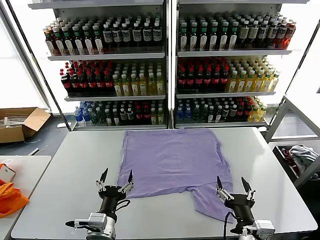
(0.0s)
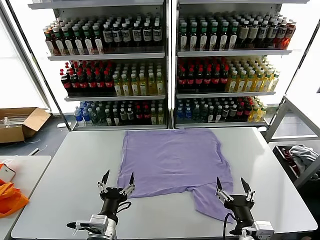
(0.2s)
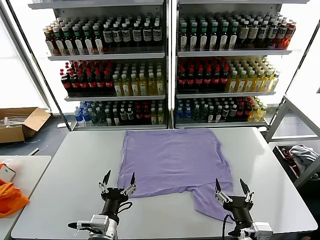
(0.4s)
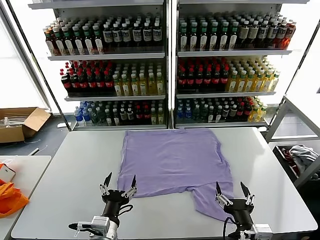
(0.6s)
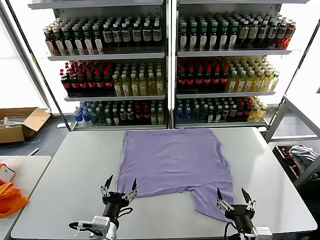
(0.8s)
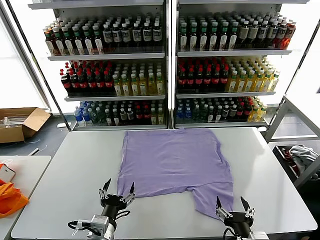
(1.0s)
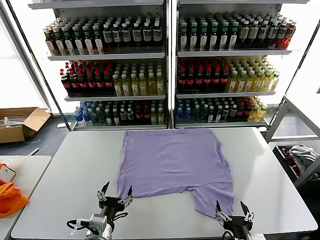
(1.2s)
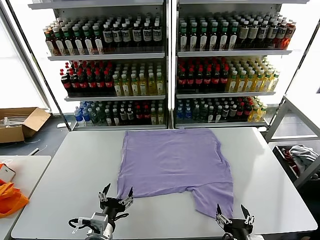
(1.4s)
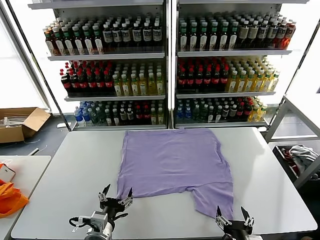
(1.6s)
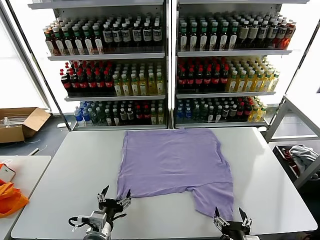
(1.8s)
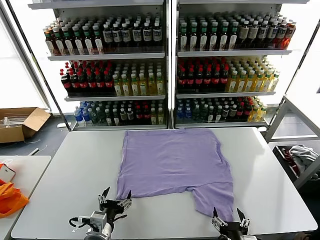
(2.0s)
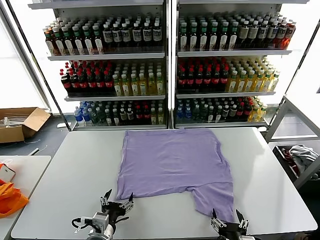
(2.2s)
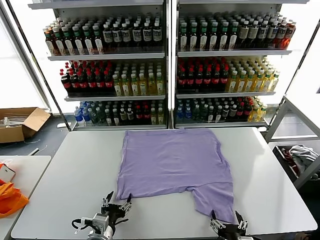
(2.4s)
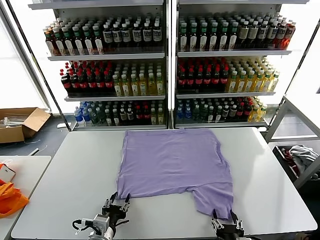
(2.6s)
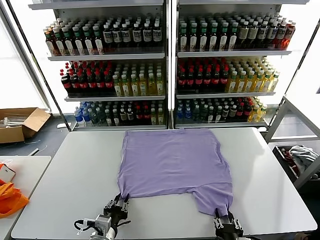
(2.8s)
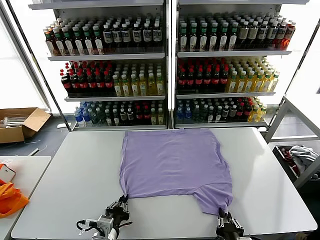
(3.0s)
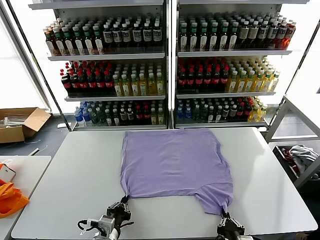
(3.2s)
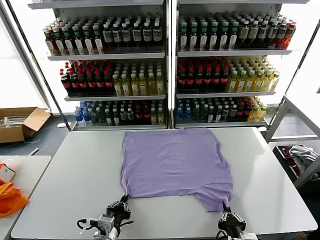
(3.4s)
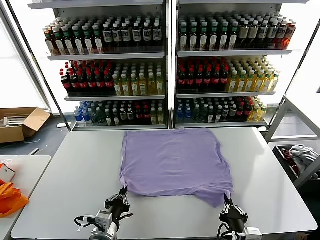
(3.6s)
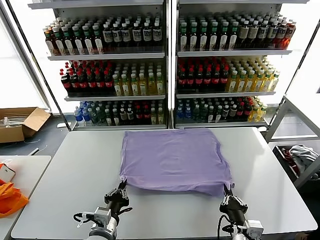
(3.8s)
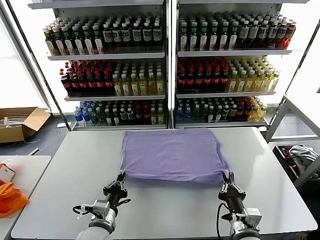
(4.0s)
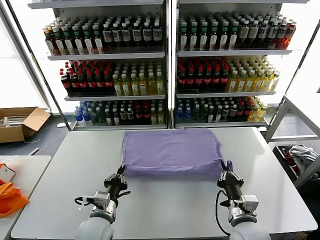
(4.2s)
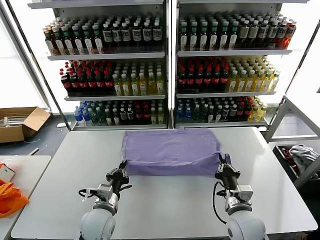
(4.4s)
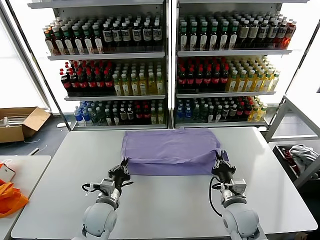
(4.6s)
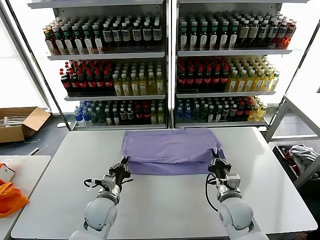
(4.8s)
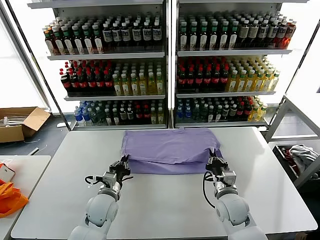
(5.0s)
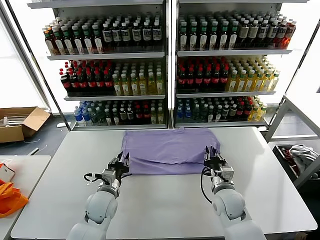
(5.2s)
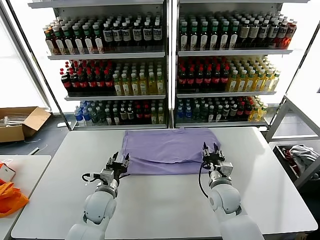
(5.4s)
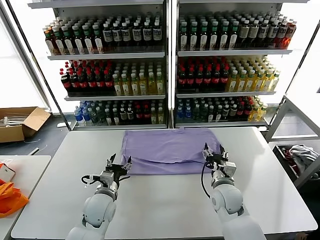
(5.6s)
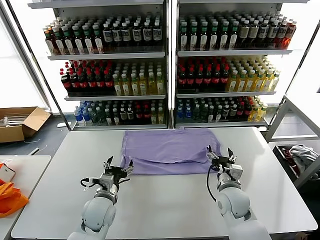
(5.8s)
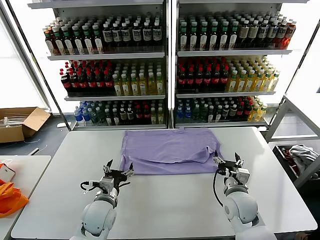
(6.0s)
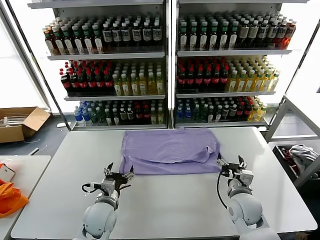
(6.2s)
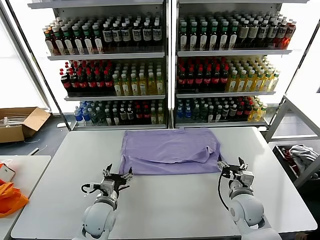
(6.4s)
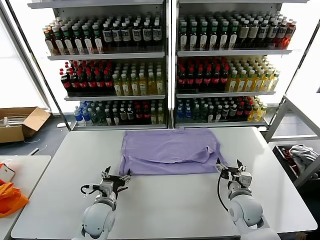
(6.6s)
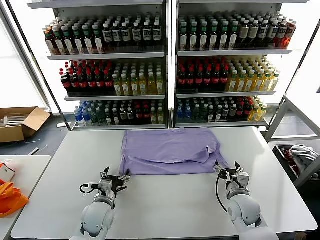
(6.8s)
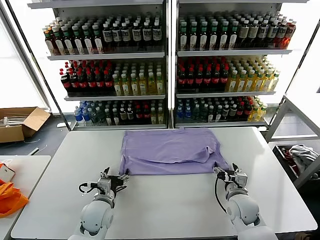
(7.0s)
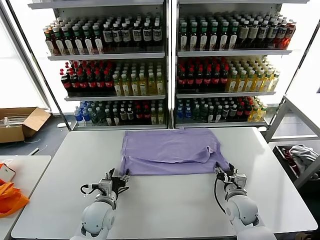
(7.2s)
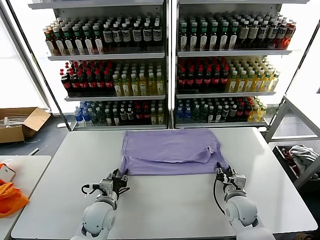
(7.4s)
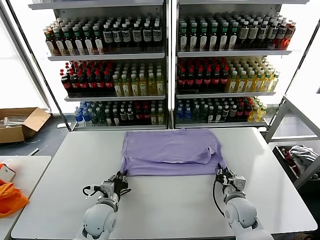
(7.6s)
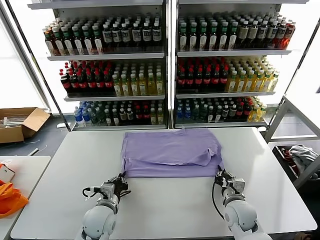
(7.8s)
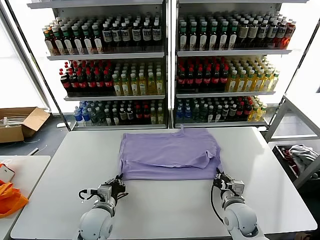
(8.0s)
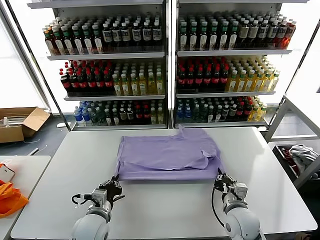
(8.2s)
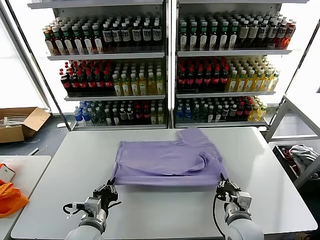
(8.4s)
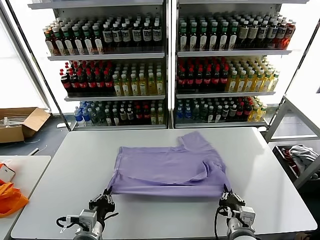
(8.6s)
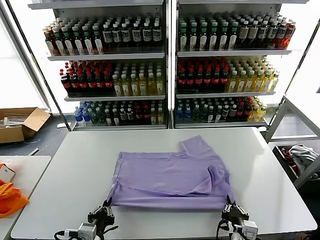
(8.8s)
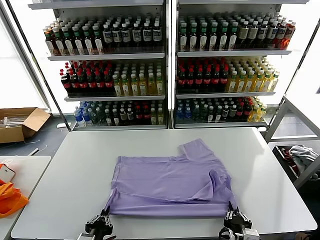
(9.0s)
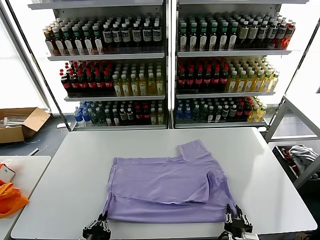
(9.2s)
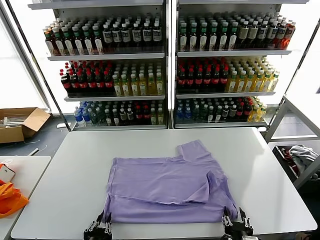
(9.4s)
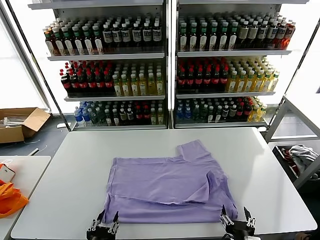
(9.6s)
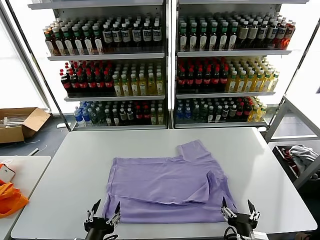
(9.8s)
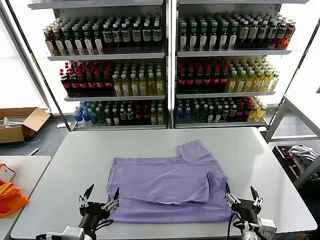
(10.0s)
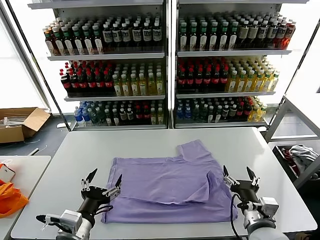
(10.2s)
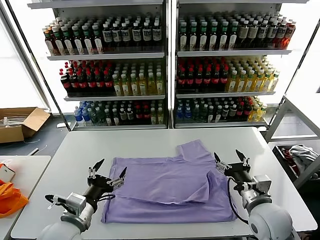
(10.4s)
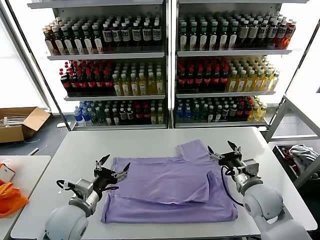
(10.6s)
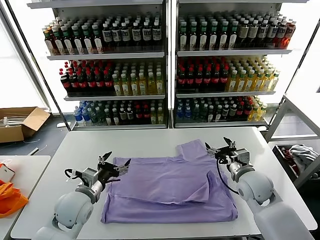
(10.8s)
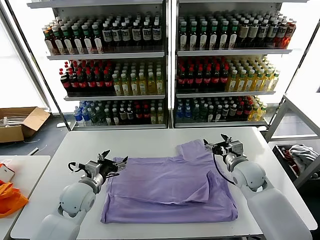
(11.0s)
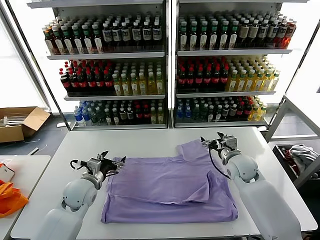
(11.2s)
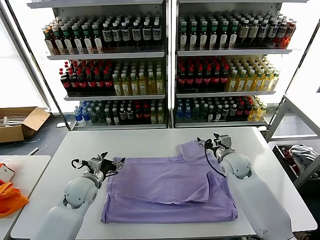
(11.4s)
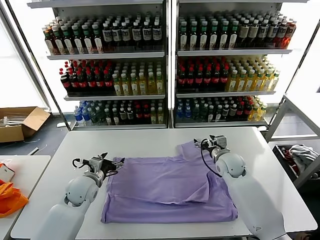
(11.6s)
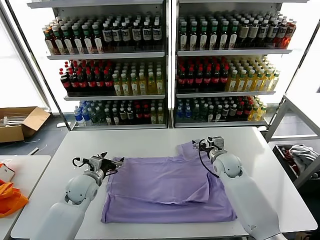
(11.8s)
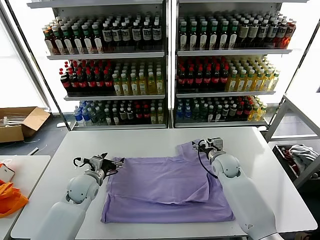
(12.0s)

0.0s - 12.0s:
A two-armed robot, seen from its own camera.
Task of the whole recording: fold and organize the clothes.
Step, 0.0s - 3.4s: use both grippers simultaneously to clamp the lower edge of the clothing fabric.
Step, 3.6s - 5.4s: use both grippers to drag the lower edge of the fabric forward and fold it over the upper edge.
Step, 5.6s - 9.4s: Drag the clothes downward with both gripper.
1.6s - 3.0s: The right gripper closes its fingers. The left gripper closes up.
3.0s - 4.4s: The right gripper goes about 15 cm forward. The left gripper travels forward by some 10 cm.
4.4s - 6.0s: The right gripper opens its fingers, while the left gripper opens its fingers.
6.0s - 7.6s: The right gripper closes up. Meanwhile the left gripper closes.
7.6s - 9.0s: Both grippers travel together backward, approximately 20 cm.
9.0s - 10.4s: The right gripper travels forward, upward and to the right by some 20 cm, and opens up, while the left gripper travels forward and upward by some 10 cm, and opens up.
10.4s - 12.0s: The right gripper travels forward by approximately 20 cm, while the left gripper heads forward and downward, covering about 20 cm.

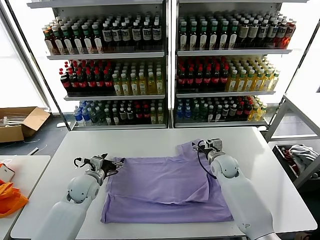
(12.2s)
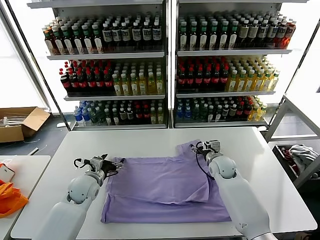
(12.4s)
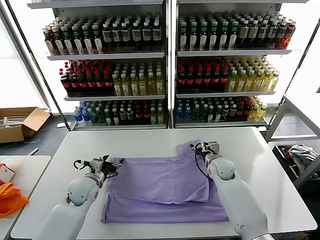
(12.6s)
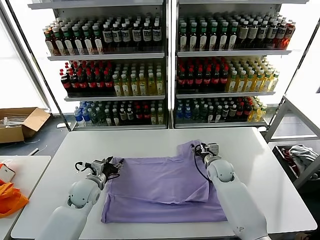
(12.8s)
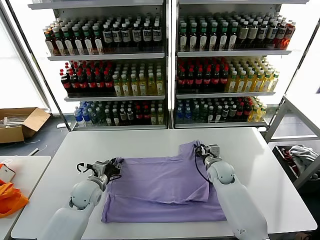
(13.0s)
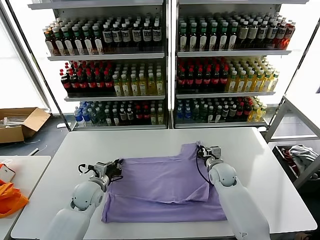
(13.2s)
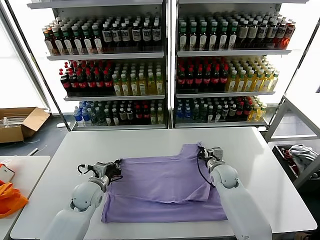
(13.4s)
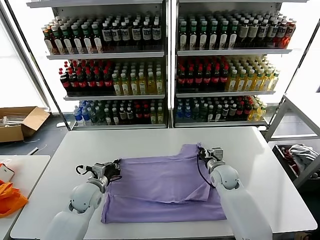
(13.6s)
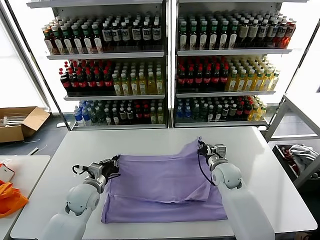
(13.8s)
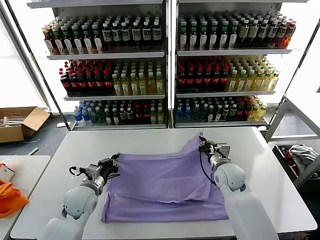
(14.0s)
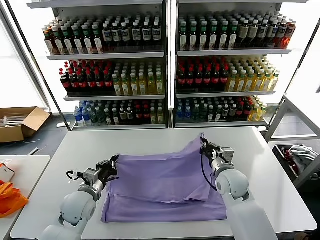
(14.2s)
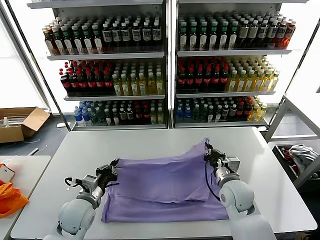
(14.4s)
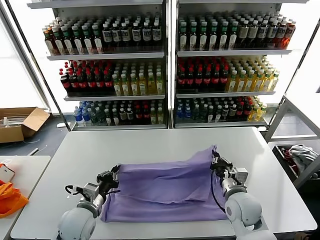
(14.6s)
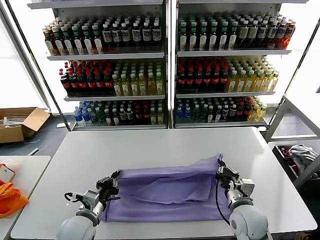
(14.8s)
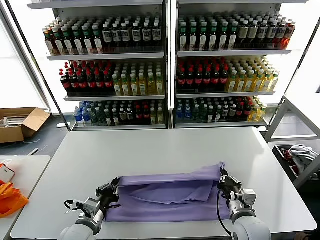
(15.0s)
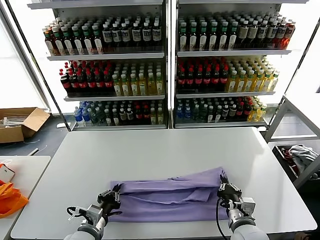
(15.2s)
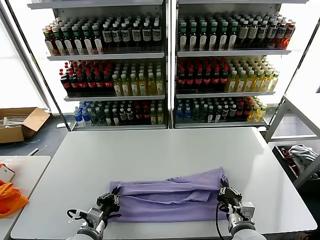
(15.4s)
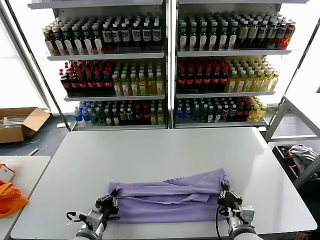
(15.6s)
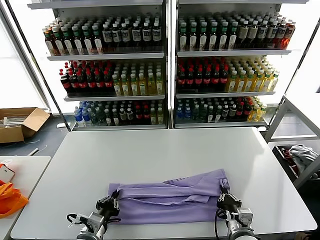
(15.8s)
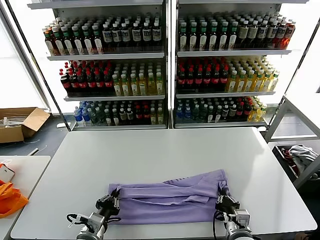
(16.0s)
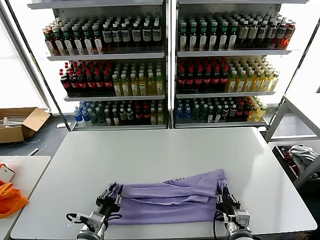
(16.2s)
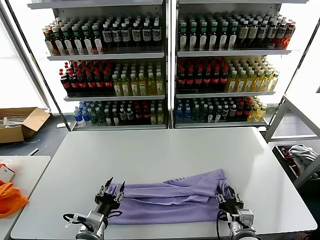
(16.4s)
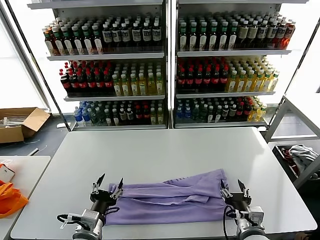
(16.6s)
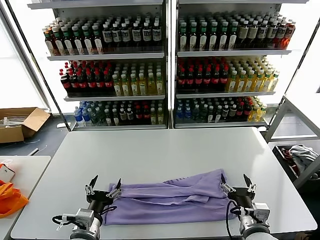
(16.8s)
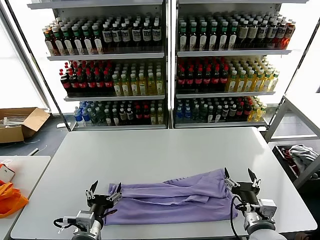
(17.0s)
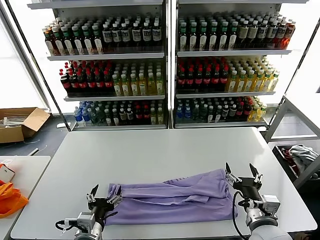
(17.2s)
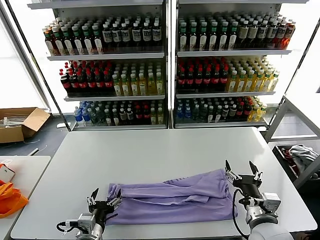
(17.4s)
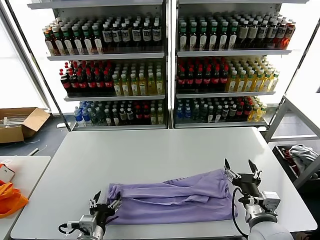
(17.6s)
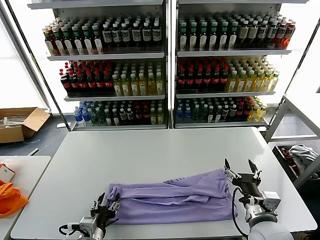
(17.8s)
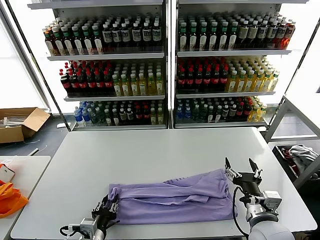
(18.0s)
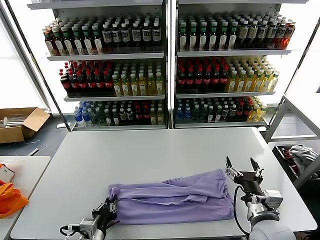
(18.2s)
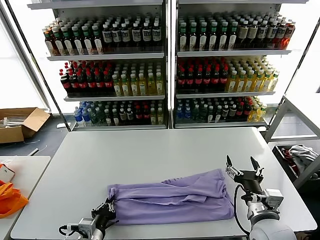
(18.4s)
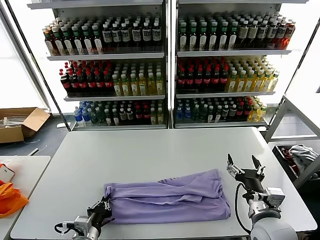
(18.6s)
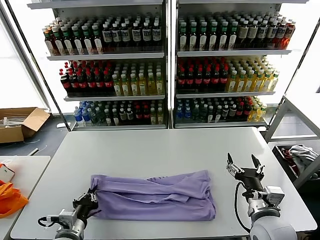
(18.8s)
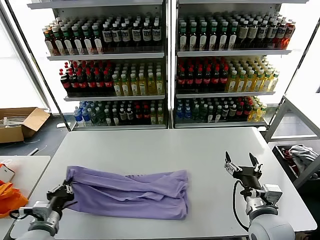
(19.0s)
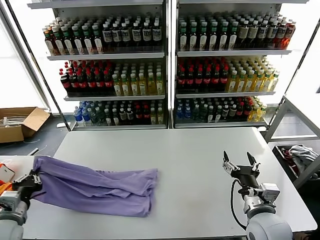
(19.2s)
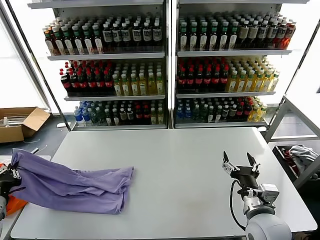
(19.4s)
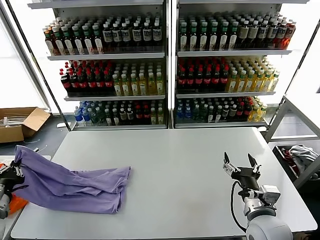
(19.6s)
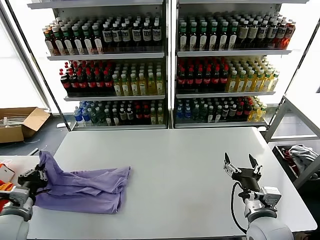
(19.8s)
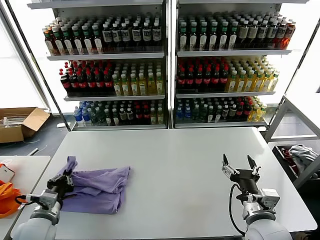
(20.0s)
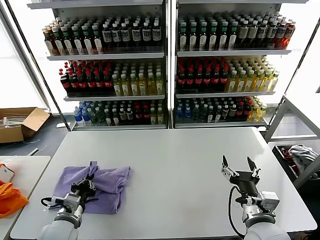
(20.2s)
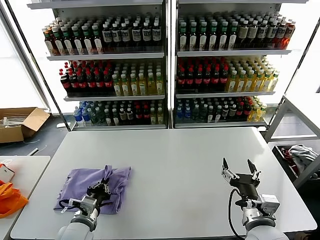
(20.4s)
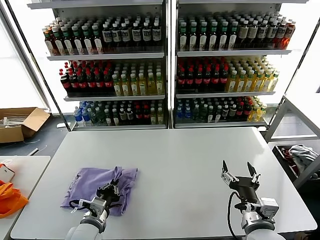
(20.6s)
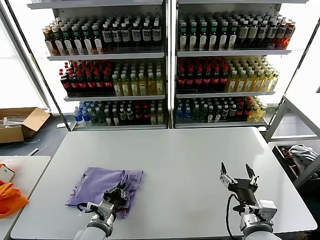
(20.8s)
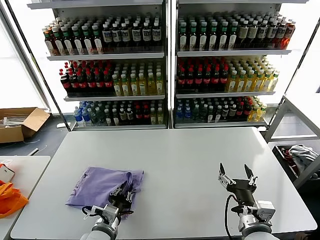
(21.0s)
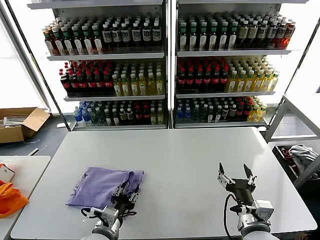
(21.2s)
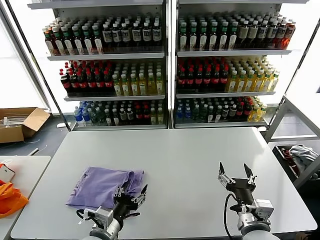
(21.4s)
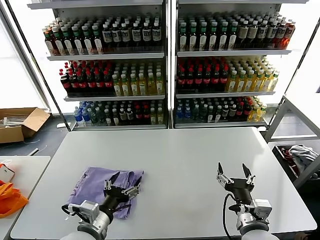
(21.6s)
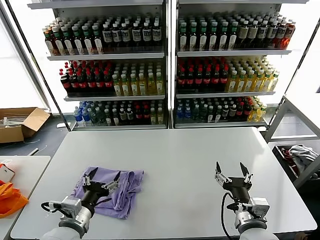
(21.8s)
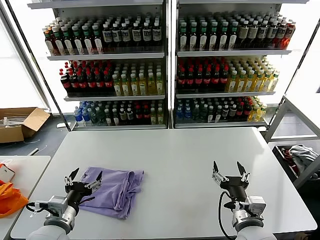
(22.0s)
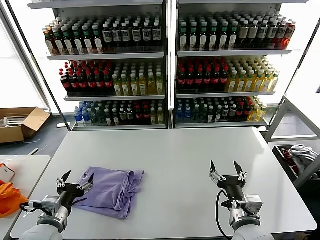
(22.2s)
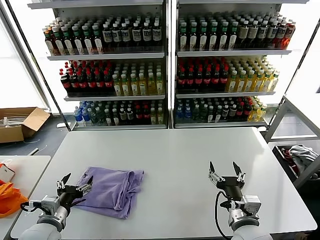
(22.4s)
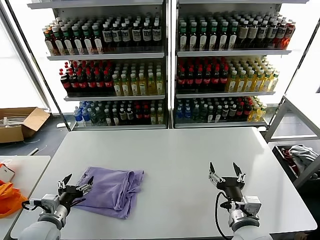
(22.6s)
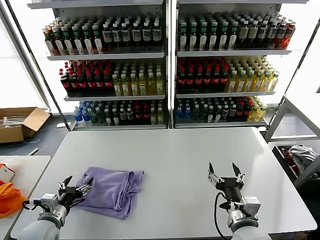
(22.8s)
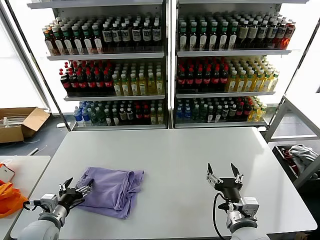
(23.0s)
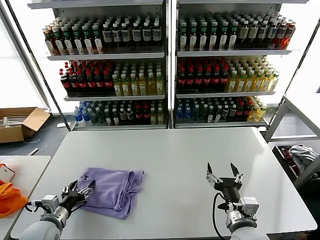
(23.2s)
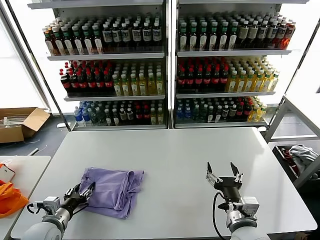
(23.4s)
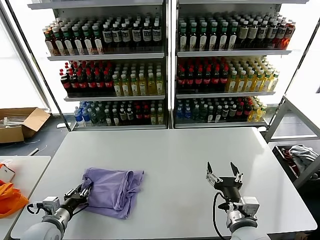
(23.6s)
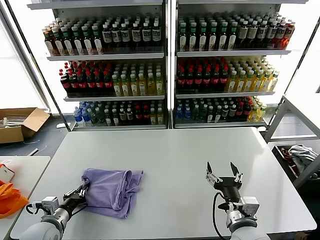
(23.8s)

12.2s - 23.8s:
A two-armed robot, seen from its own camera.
Task of the whole recording: fold and organize the clothes.
Step, 13.6s - 16.4s: use both grippers to drag the upper edge of the fabric backward and fold it over the lower edge.
Step, 16.6s - 18.4s: use the left gripper to clamp the left edge of the fabric.
Step, 18.6s - 21.2s: use the left gripper to drag the left edge of the fabric to the left and folds it over the right edge.
12.2s - 13.6s: The right gripper closes. Meanwhile the left gripper closes.
13.6s - 15.0s: The two grippers go about 15 cm backward.
15.0s - 16.6s: The right gripper opens up. The left gripper ends up some 5 cm from where it was, and opens up.
16.6s - 18.0s: The right gripper heads upward, covering roughly 5 cm.
18.0s - 19.4s: The left gripper travels to the left and upward by approximately 25 cm, and closes.
19.4s - 21.0s: The left gripper moves to the right, about 25 cm.
21.0s - 22.4s: The left gripper is displaced to the left by some 15 cm, and opens up.
22.4s - 23.8s: The left gripper shifts by approximately 5 cm, and closes up.
